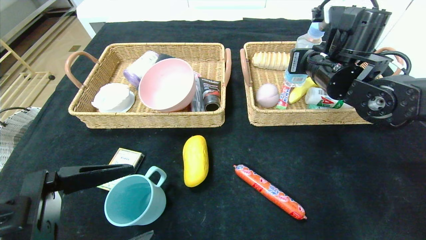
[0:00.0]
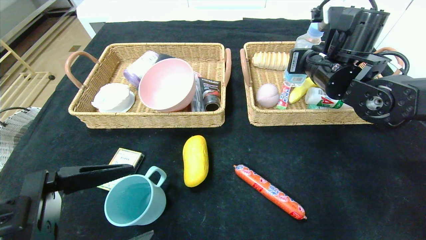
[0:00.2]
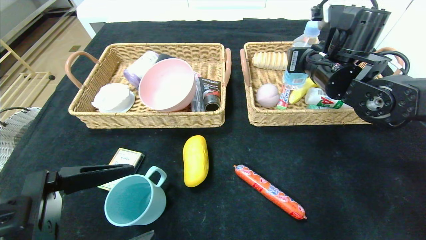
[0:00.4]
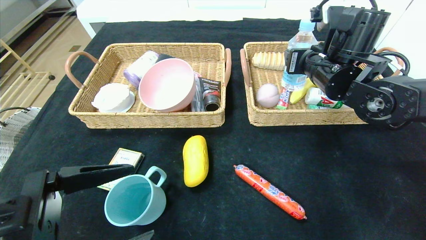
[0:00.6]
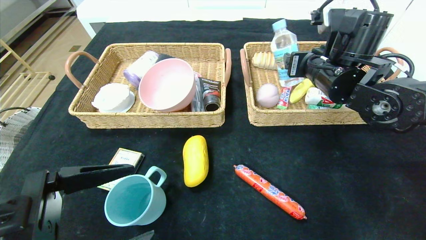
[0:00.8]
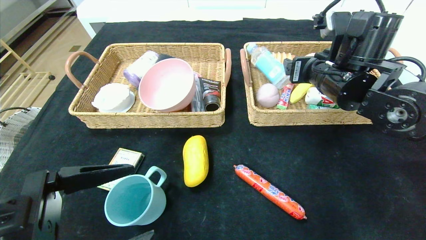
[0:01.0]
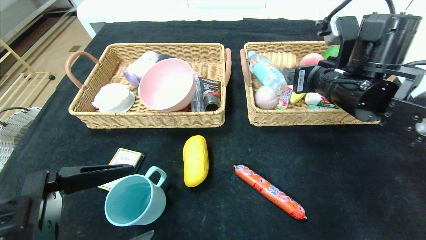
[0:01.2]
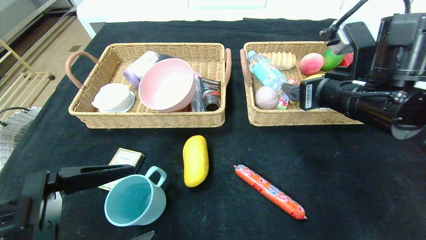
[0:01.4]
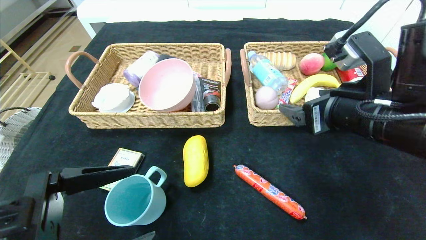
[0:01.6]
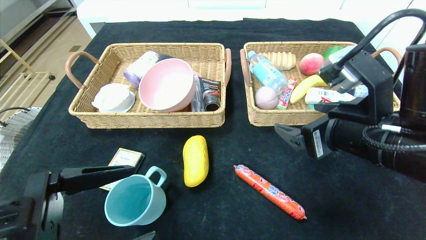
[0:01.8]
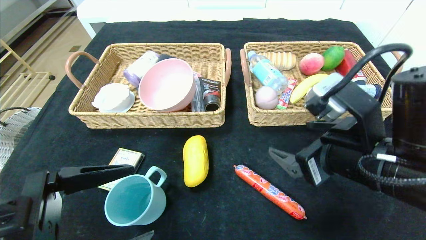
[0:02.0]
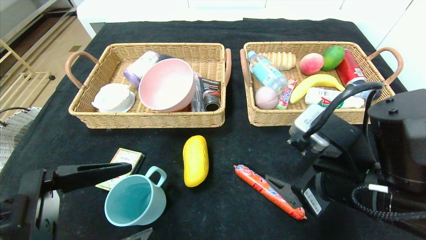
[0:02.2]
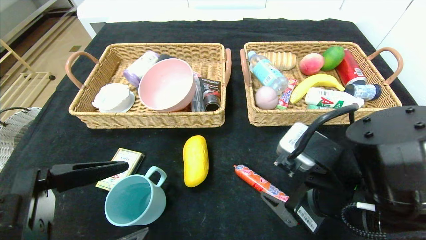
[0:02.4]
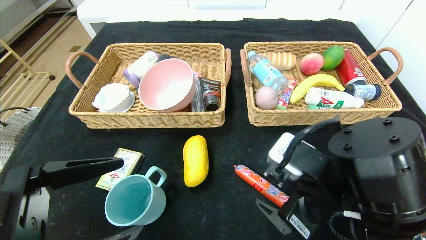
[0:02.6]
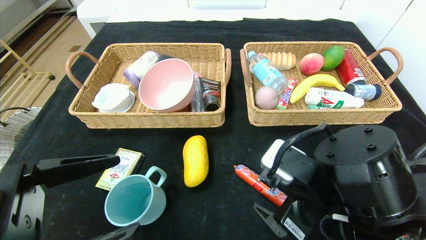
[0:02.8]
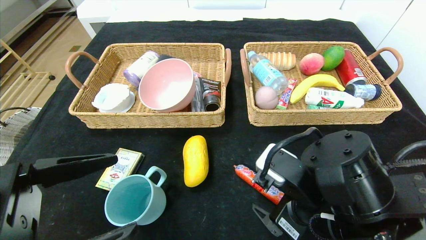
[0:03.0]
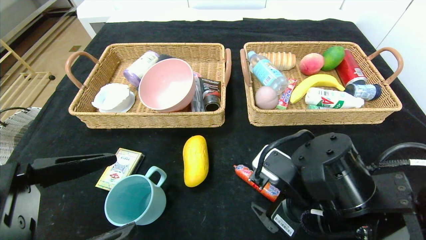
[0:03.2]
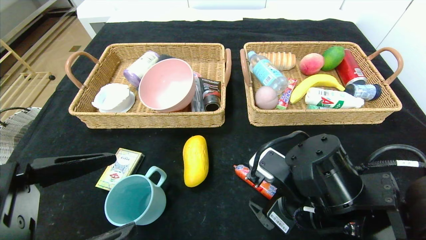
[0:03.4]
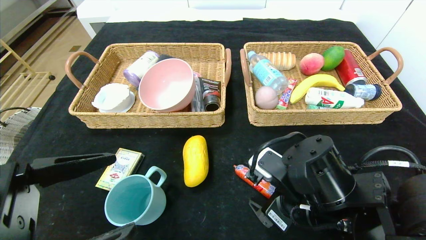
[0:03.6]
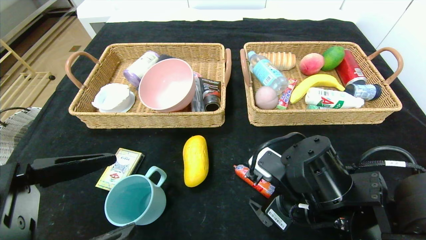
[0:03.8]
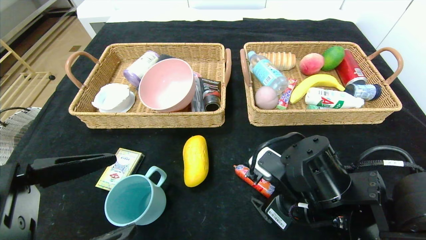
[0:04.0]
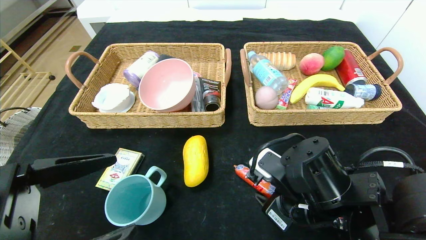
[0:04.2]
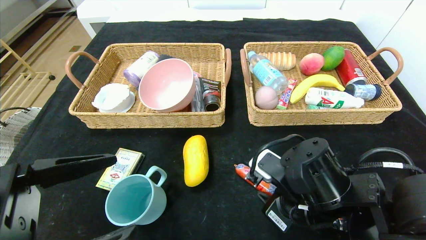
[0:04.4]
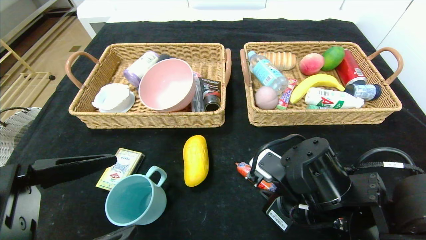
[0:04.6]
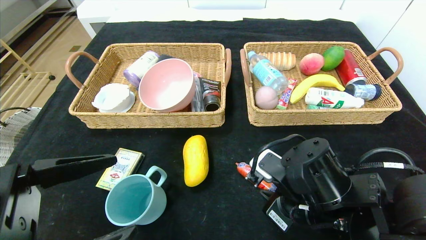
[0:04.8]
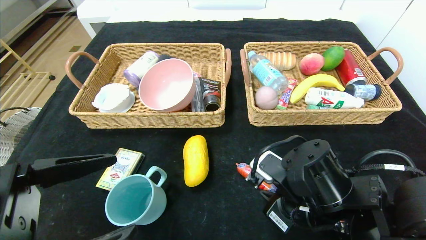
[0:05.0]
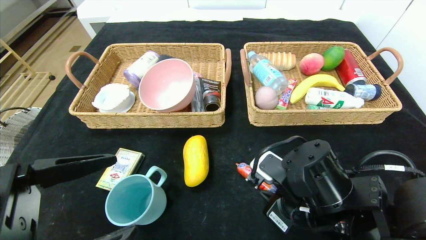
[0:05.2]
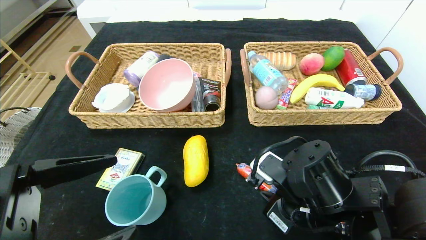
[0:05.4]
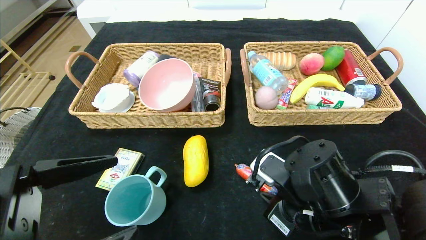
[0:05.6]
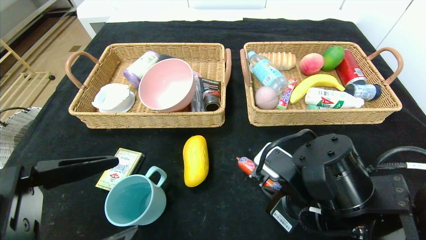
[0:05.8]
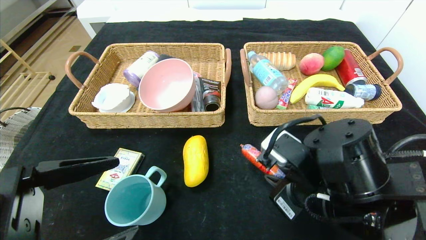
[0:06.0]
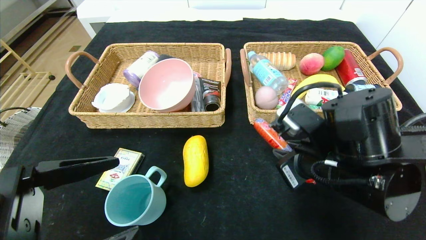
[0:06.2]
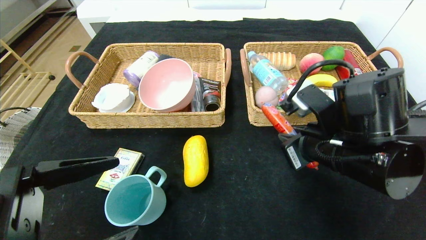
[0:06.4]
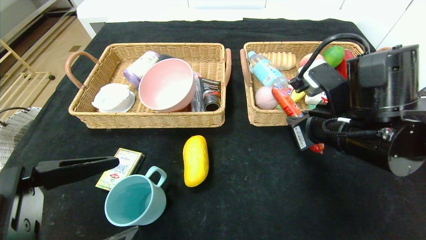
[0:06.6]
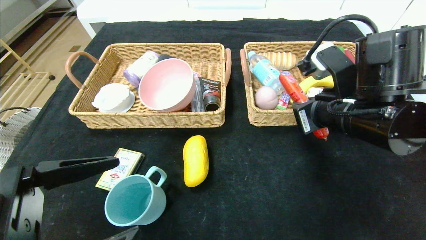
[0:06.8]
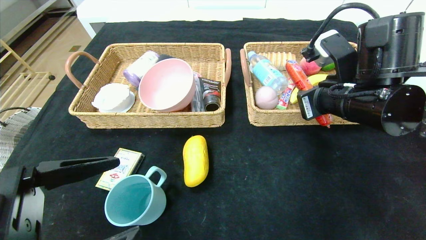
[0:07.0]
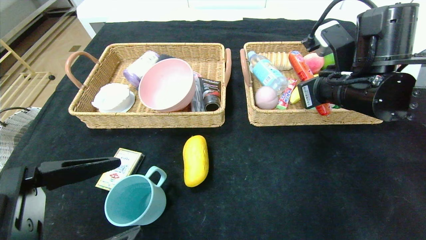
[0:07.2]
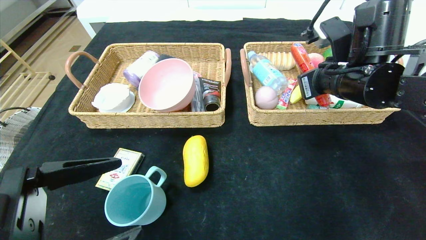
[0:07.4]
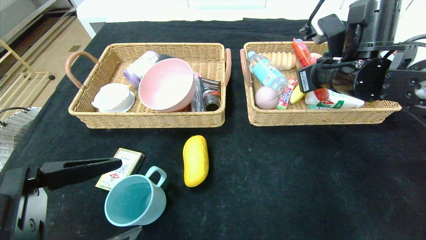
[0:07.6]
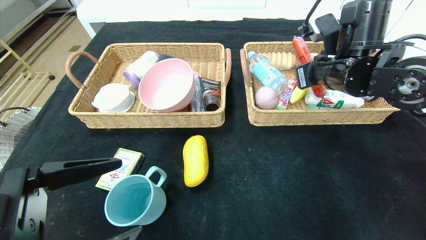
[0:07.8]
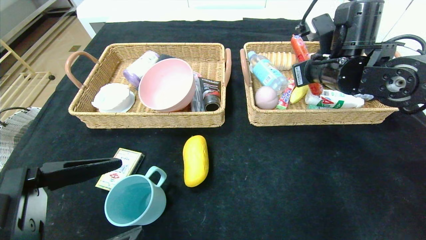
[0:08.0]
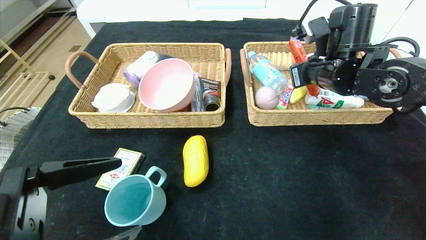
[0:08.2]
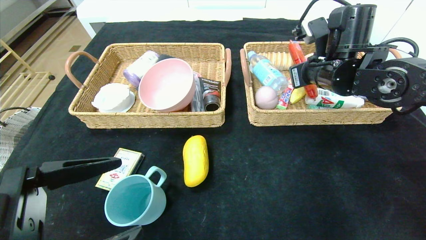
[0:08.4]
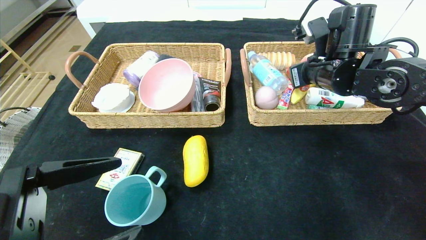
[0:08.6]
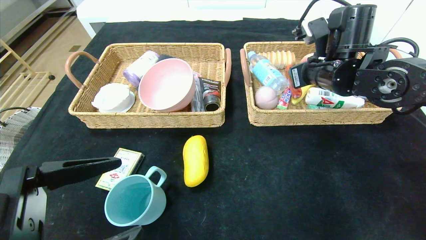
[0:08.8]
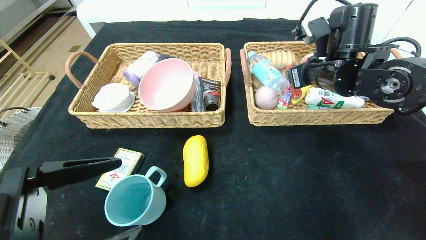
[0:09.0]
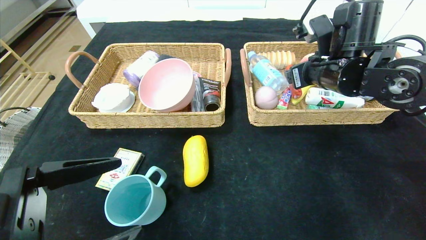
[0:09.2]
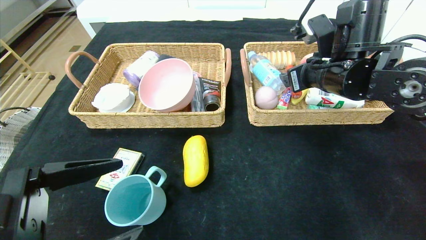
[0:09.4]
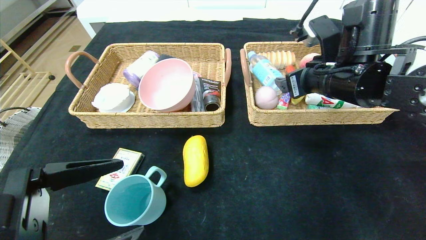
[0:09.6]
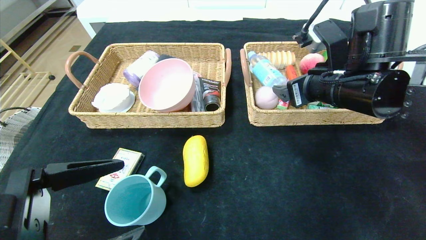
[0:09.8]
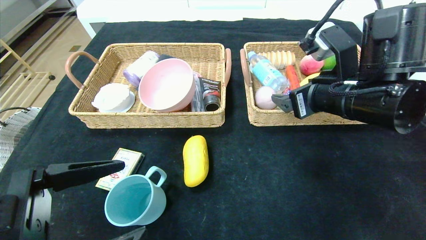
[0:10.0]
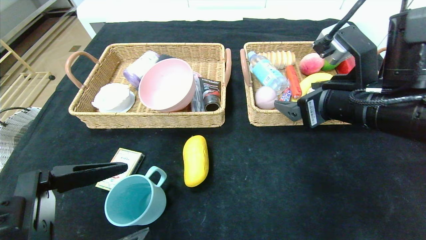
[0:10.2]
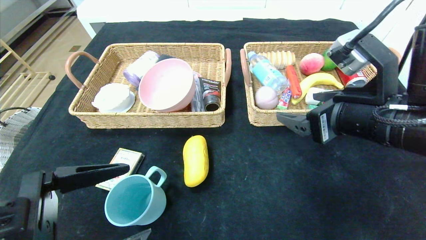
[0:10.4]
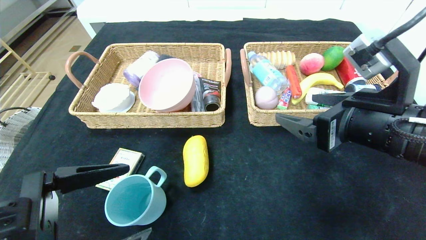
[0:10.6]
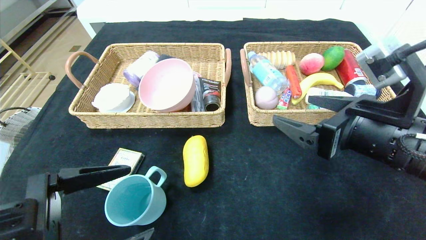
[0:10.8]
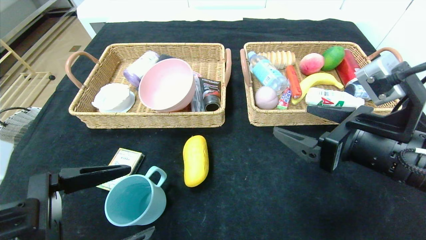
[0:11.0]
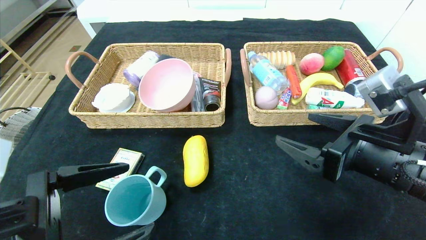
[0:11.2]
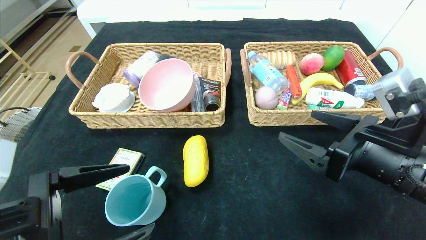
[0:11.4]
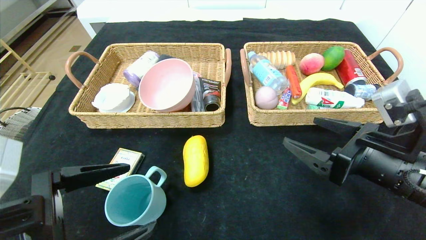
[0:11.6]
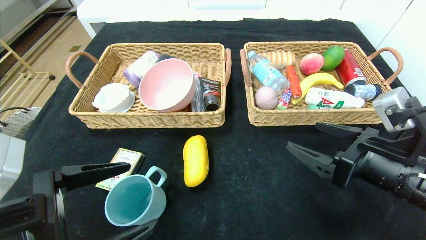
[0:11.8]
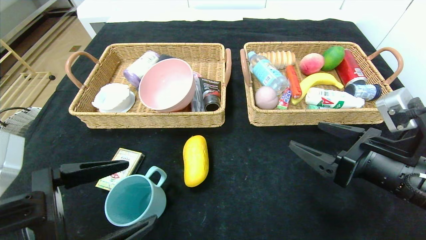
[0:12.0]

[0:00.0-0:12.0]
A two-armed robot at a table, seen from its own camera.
Step, 1.0 to 8.6 s: Grasp the sausage and put it in the right basket.
0.0 to 1.6 s: The right gripper travels backward by approximately 15 cm, and opens its fingers.
1.6 to 3.0 s: The right gripper heads downward, backward and to the left, covering roughly 10 cm.
3.0 to 4.4 s: The right gripper closes up.
4.4 to 6.0 s: The grippers make only small movements.
6.0 to 7.6 s: The right gripper travels forward, upward and to the right by some 20 cm.
7.6 to 9.0 s: The right gripper opens up.
9.0 to 10.4 s: The right gripper travels backward by some 15 cm.
10.4 to 12.0 s: The right gripper travels downward by roughly 5 cm.

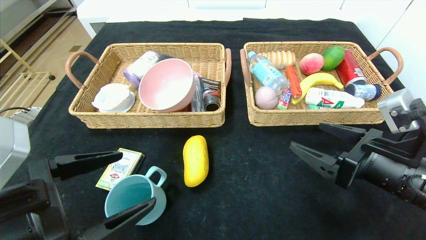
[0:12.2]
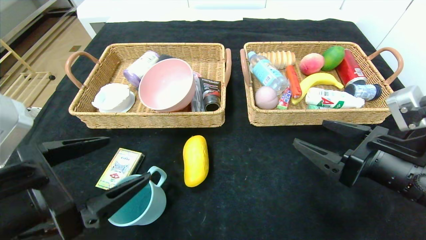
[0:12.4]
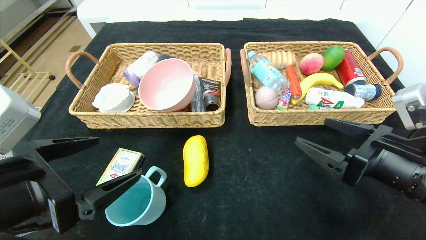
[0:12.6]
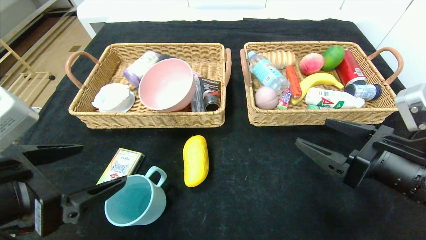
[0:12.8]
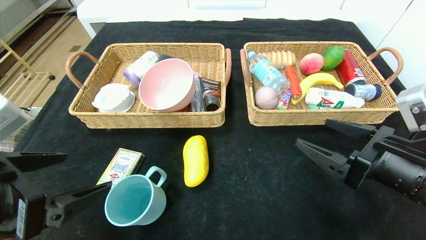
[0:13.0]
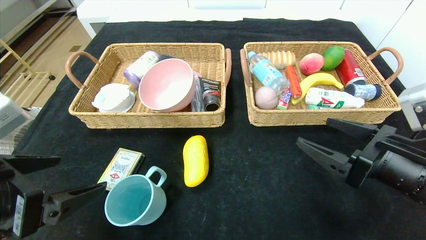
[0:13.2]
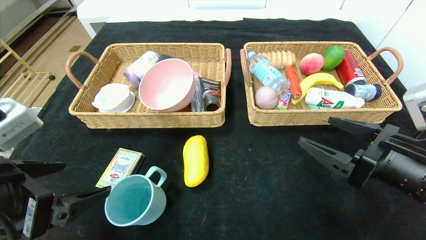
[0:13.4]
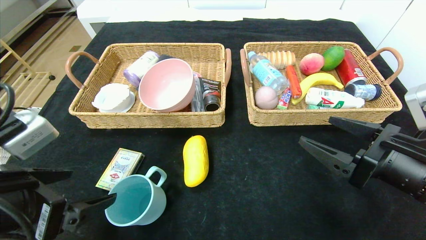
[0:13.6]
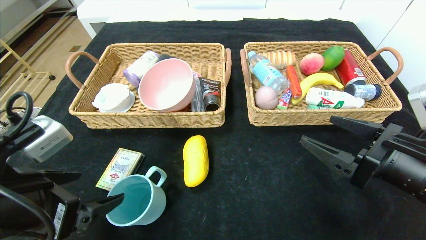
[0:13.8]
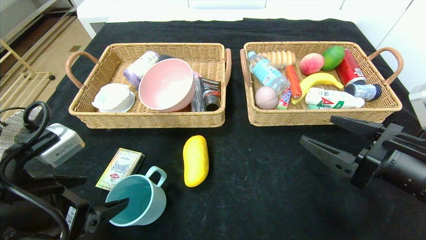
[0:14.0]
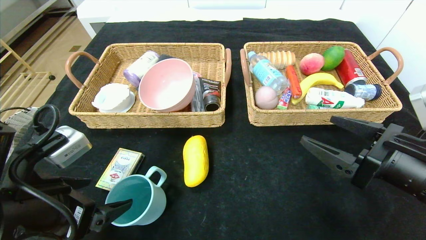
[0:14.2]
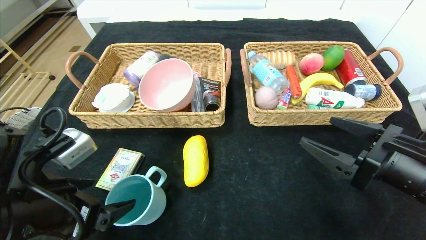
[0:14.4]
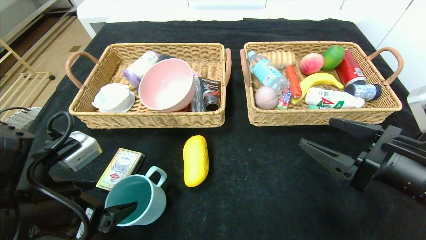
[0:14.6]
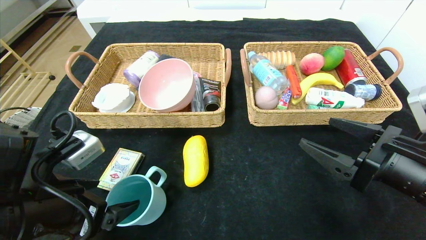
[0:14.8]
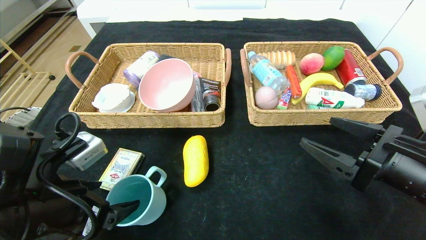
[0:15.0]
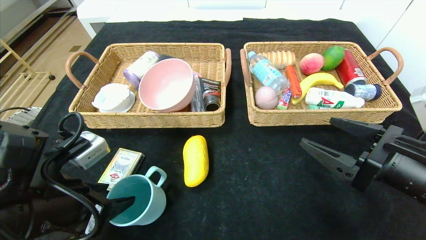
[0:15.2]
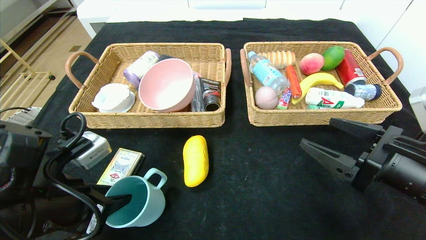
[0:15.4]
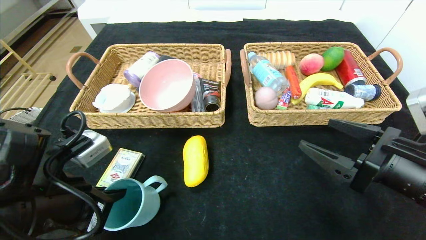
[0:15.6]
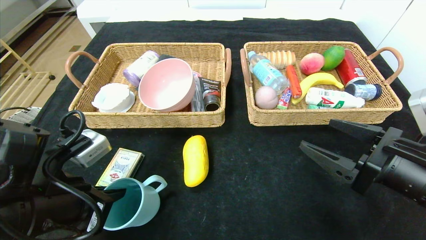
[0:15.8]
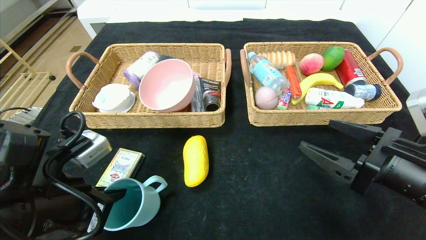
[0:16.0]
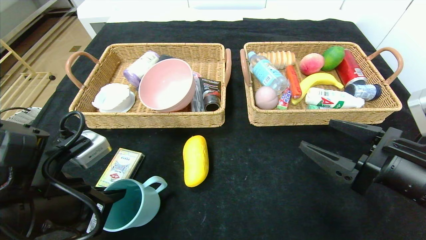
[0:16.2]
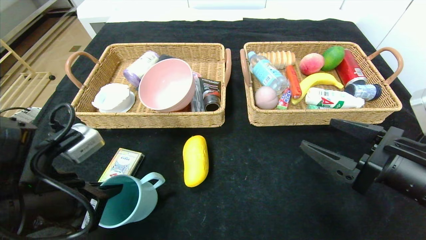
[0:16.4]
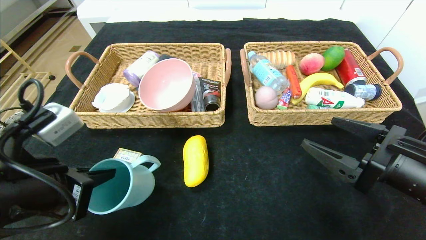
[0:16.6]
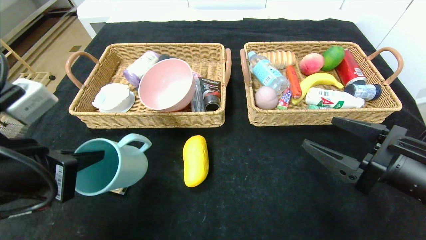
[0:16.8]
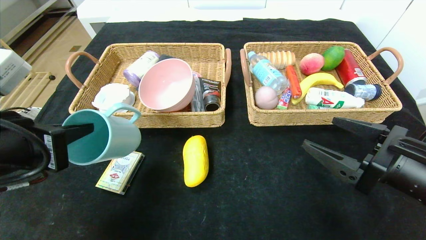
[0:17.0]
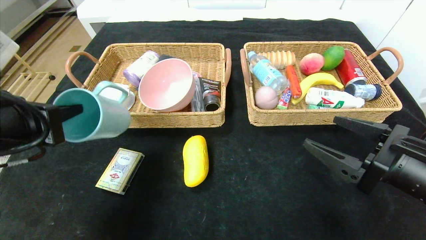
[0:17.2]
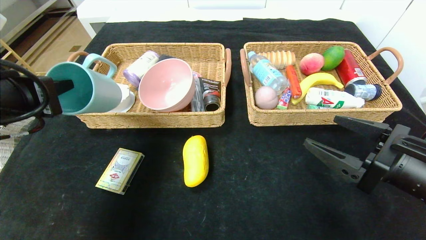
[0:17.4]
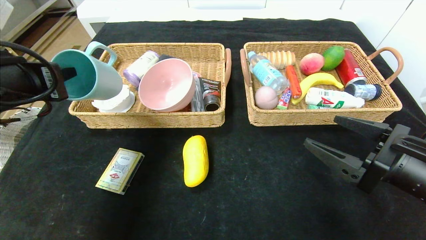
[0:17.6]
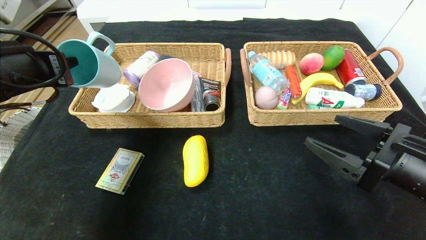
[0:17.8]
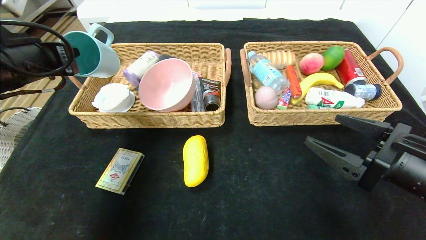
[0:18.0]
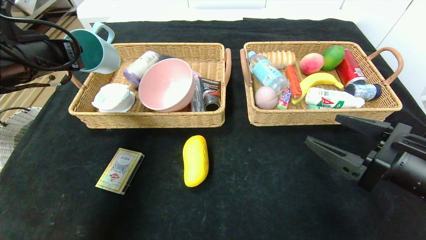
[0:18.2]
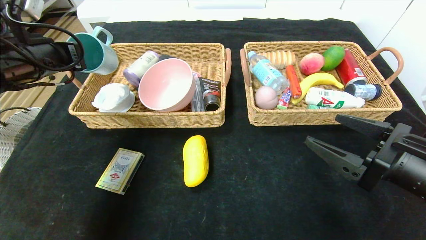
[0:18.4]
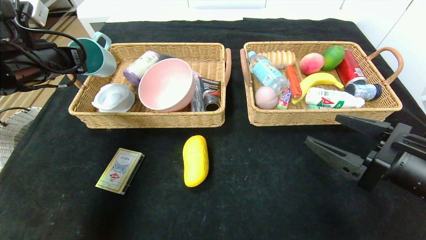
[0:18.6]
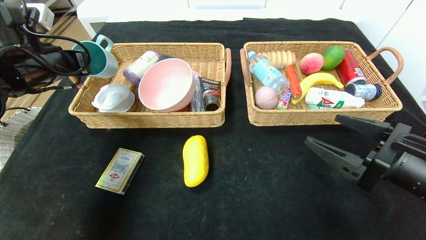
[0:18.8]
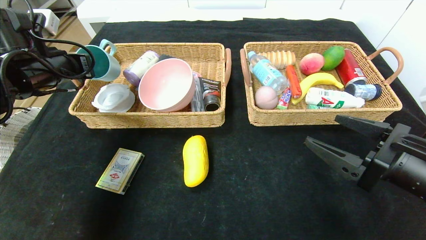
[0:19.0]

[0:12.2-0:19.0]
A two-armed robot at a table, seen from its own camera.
13.6 to 15.0 s: The left gripper moves roughly 5 cm.
15.0 to 16.2 s: The left gripper closes up.
16.2 to 17.6 s: The left gripper moves upward and forward, some 15 cm.
17.6 to 19.0 s: The left gripper travels forward by some 15 cm.
